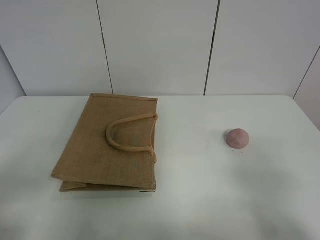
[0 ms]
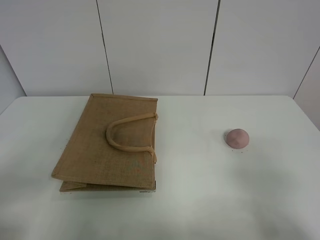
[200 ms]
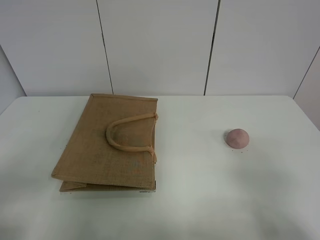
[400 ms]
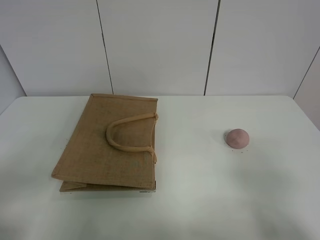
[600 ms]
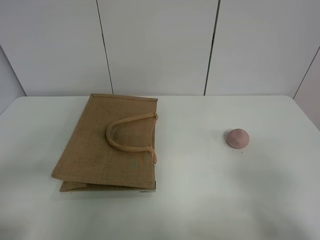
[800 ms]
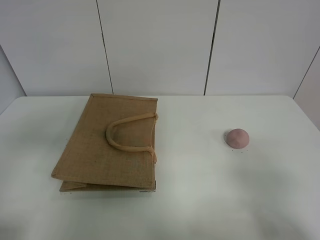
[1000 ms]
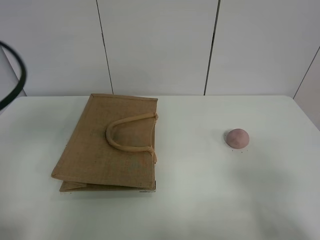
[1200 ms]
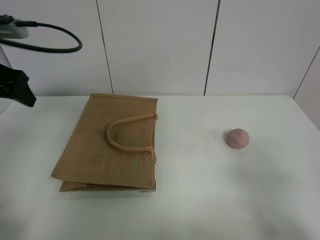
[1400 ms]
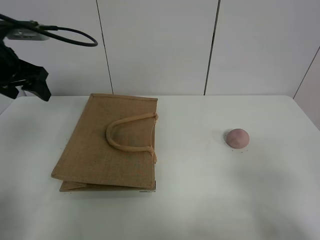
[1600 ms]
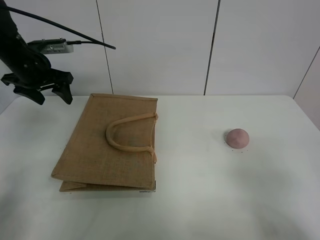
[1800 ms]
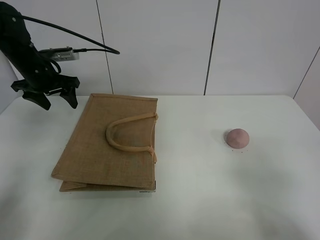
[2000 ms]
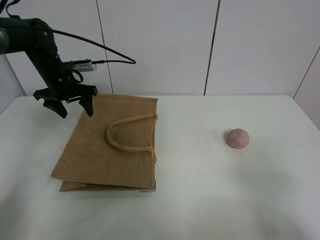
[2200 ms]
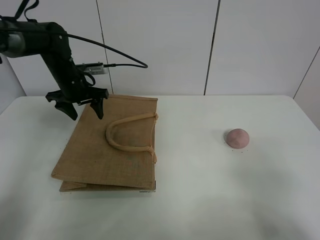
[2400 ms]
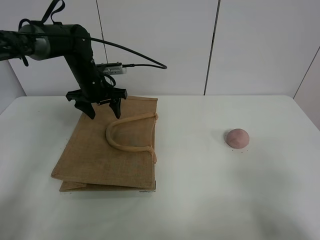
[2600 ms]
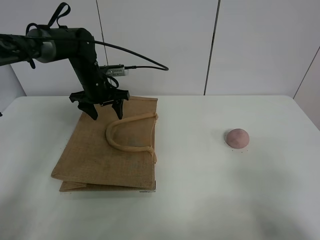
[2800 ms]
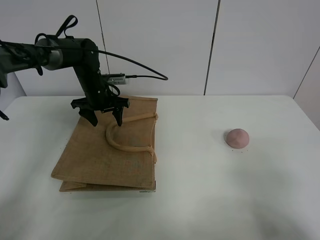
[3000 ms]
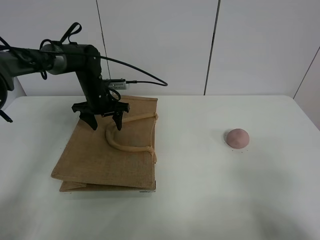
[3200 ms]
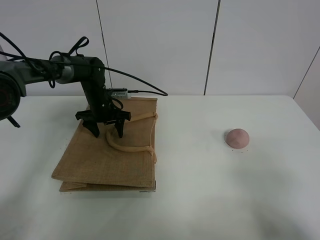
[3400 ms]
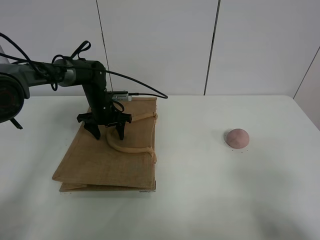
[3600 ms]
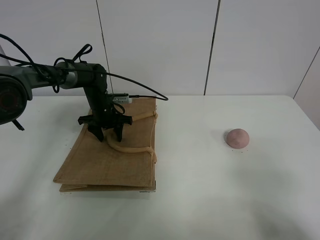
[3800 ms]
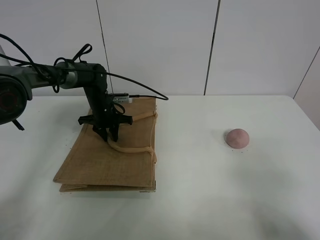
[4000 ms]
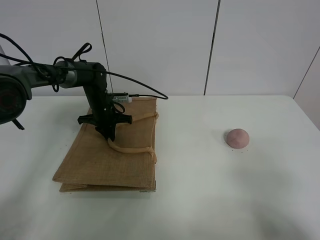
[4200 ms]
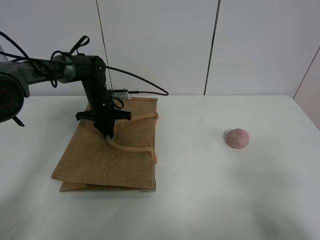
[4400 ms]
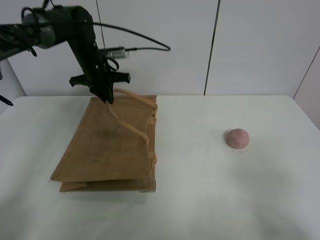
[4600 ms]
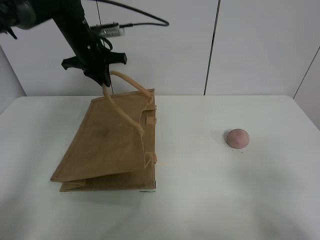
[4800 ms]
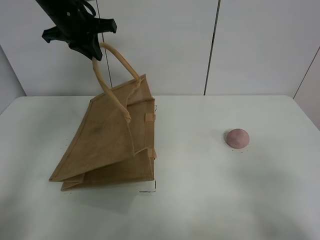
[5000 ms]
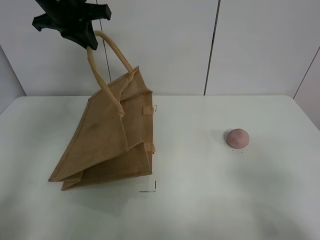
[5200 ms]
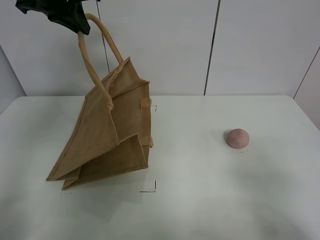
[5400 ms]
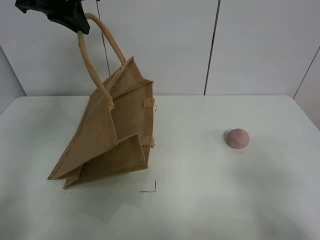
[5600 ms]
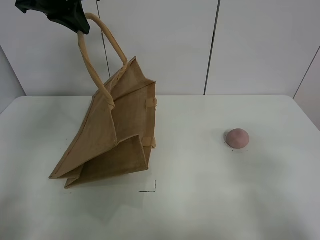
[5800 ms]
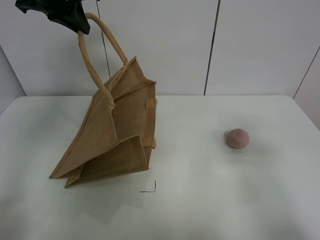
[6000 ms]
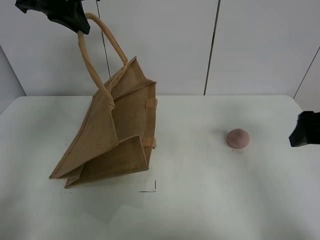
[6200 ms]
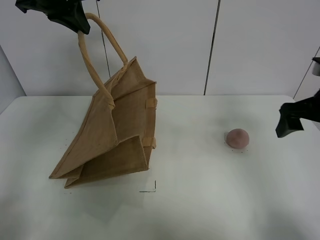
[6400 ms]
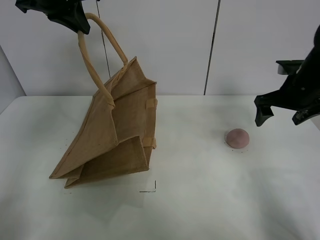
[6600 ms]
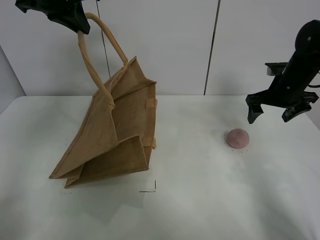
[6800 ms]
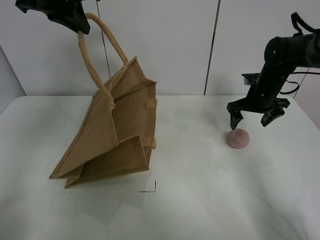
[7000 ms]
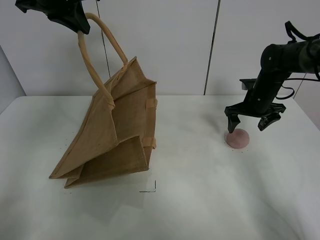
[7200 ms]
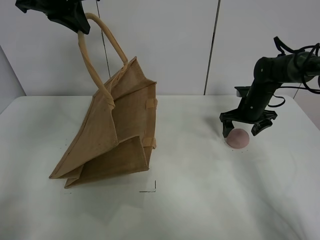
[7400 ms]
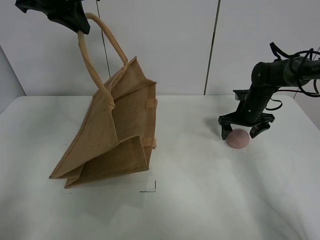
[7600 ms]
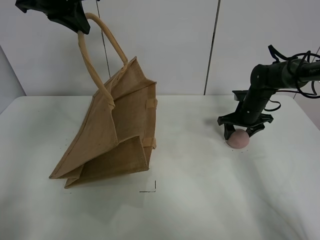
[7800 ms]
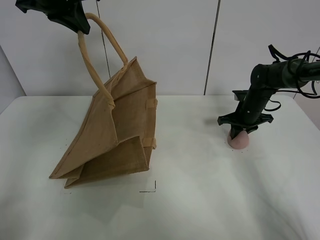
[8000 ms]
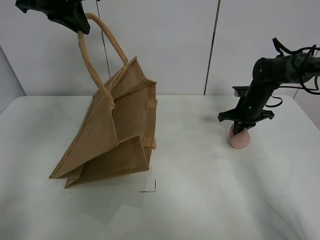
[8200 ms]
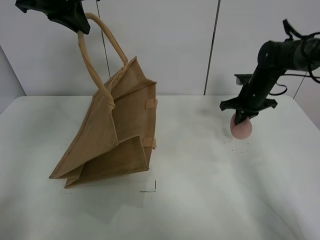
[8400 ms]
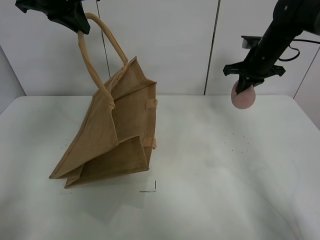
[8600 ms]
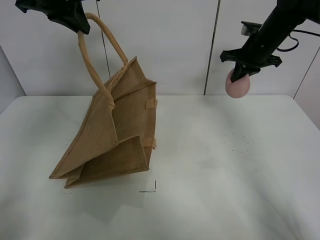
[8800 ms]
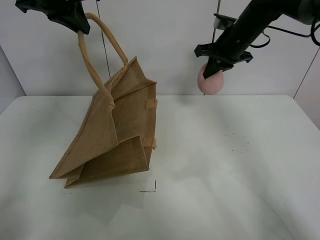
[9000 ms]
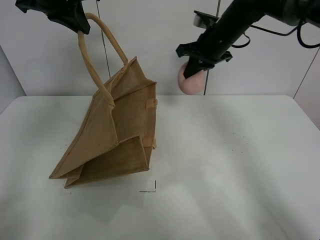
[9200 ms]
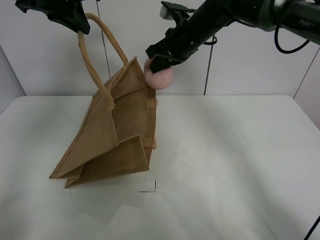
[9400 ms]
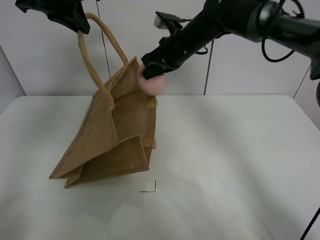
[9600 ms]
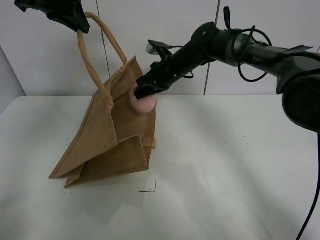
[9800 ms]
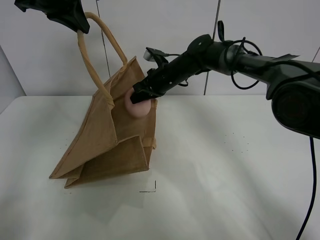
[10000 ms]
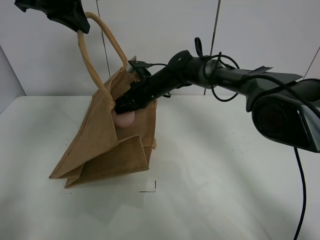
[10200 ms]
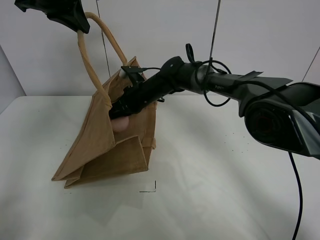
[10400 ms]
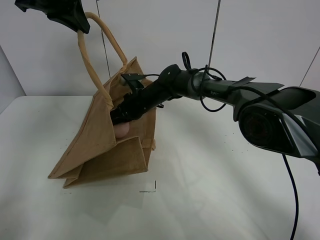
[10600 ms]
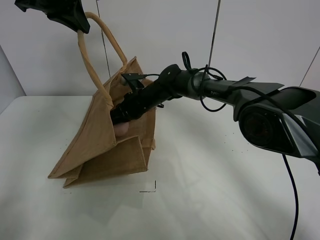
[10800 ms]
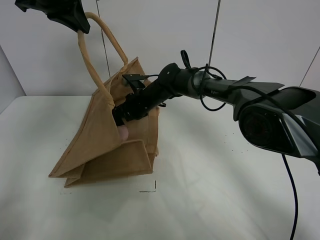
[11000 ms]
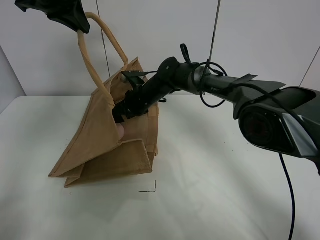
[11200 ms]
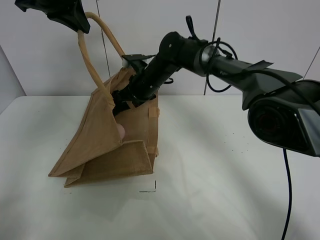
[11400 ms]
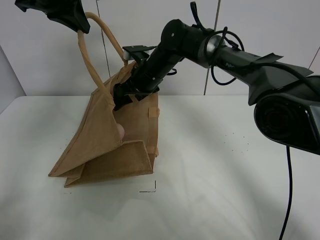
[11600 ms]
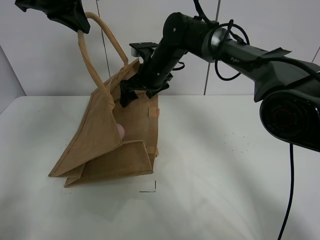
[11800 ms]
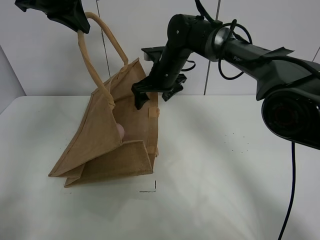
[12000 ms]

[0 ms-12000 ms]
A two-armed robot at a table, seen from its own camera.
Task of the whole recording: open the brown linen bag and put the peach in the bag.
Step, 0 ms to 5400 ms: Lift the handbag with left gripper.
Step, 5600 ms to 8000 ms: Grasp the peach with right gripper.
1600 ms to 3000 ms: The left gripper moves forward, downward and to the right, roughly 25 cm.
3000 ms to 4400 ms: The left gripper heads downward, covering about 5 cm, and closes its fingers.
4400 ms to 6000 ms: The right gripper shifts about 5 cm forward. Meanwhile the left gripper travels upward by approximately 30 cm.
6000 ms to 7600 ms: The right gripper moves forward and downward, roughly 40 cm.
7600 ms to 9000 ms: The right gripper heads upward, covering some 20 cm, and closes.
9000 ms to 10400 ms: The right gripper goes approximately 25 cm to the left and downward.
10400 ms to 12000 ms: The right gripper heads upward, covering approximately 5 cm, and opens.

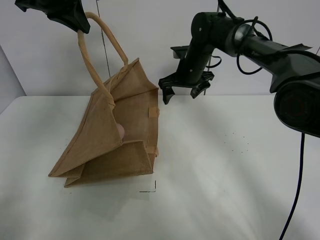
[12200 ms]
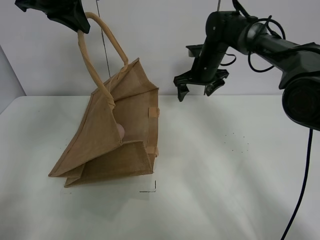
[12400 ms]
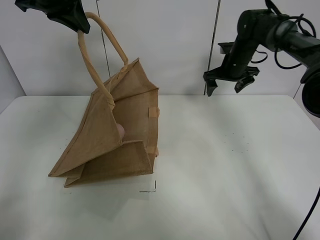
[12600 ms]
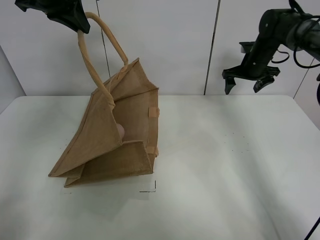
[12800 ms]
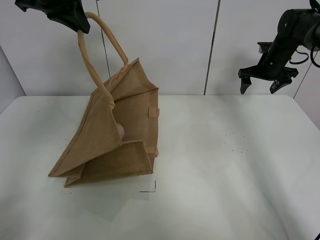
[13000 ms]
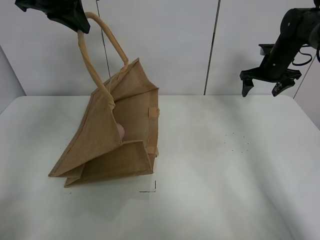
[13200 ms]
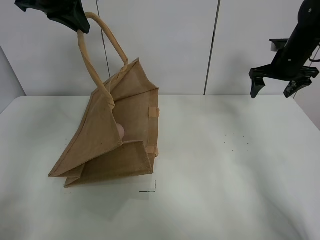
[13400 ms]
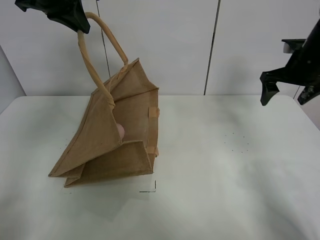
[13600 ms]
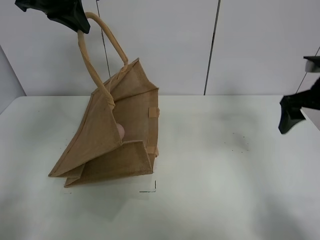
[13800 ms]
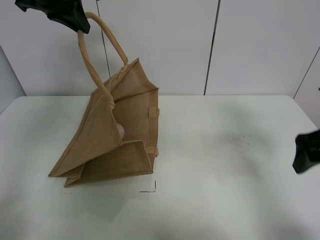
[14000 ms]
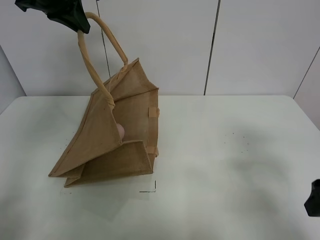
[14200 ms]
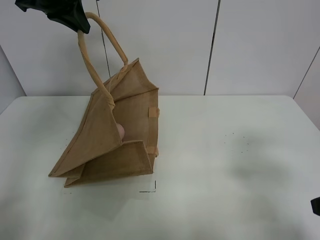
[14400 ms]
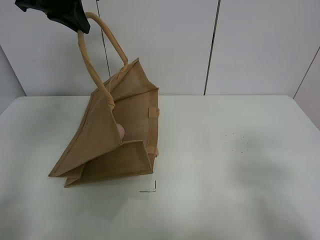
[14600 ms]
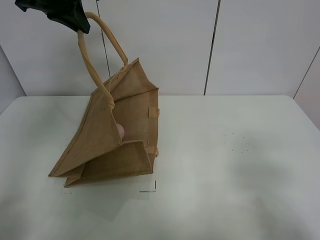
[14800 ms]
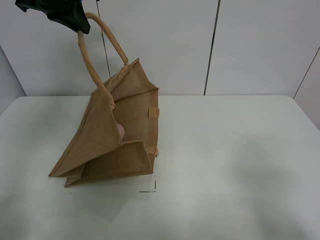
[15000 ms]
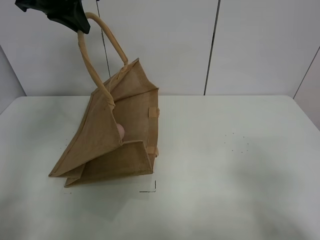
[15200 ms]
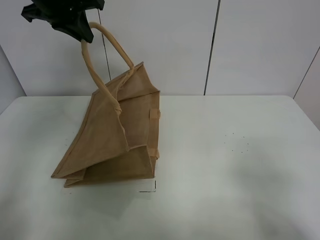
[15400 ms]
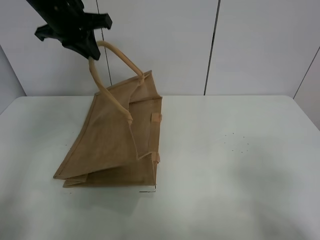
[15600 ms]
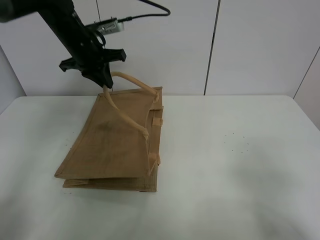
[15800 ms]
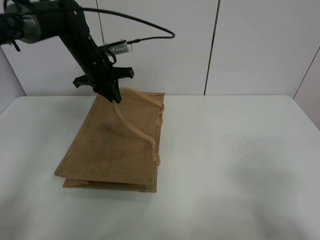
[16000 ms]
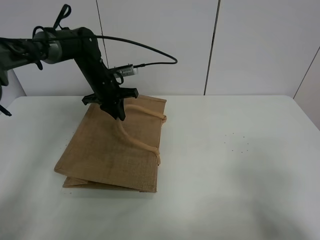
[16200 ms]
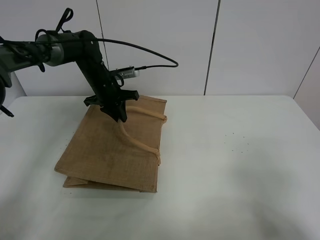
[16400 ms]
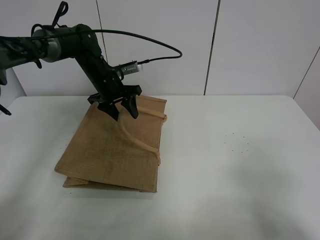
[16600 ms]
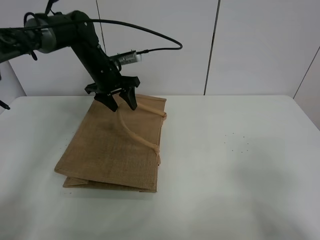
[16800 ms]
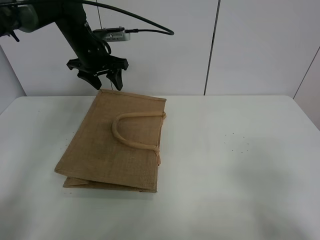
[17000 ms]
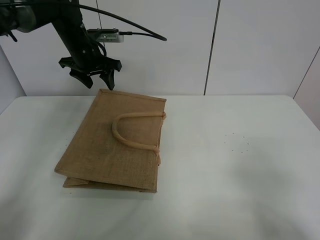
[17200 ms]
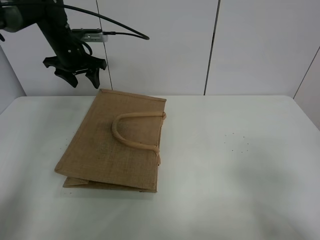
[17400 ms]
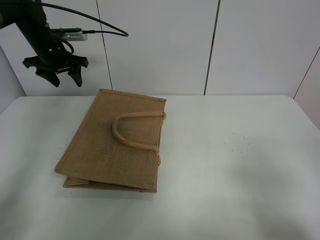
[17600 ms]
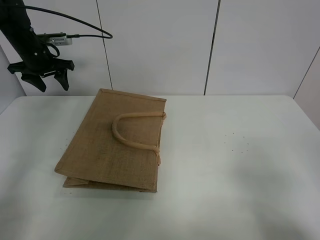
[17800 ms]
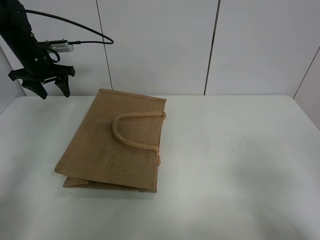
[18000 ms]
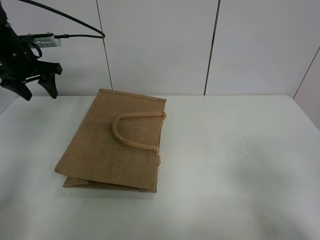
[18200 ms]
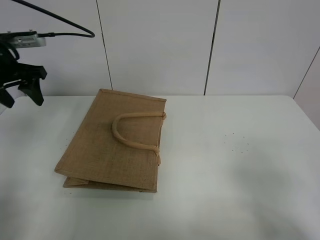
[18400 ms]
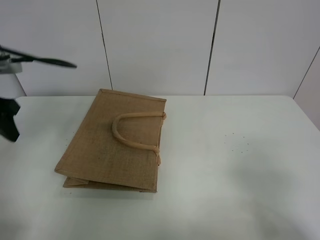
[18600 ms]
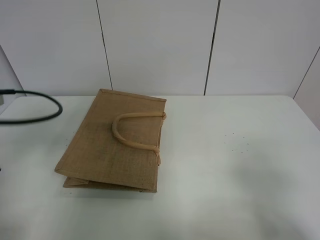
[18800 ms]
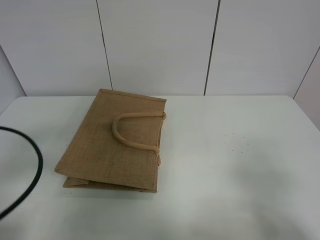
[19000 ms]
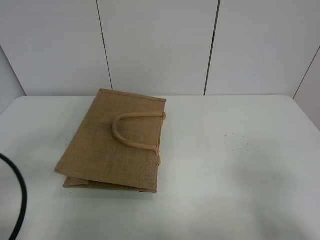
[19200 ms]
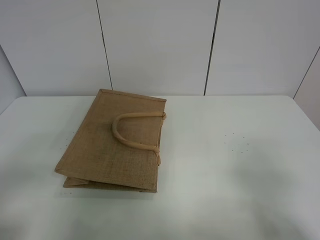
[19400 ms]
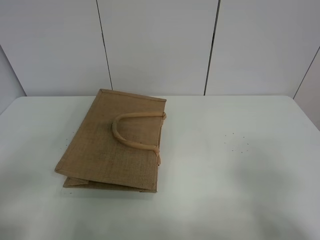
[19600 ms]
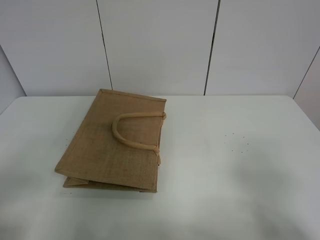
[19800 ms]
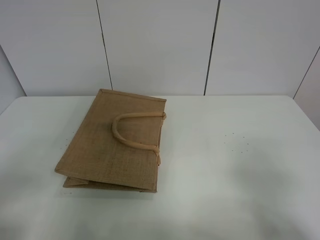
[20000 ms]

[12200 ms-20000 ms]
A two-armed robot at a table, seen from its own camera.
Task of the whole recording: open the brown linen bag and put the peach in the bag.
Step, 12400 ms to 17400 ms: Put down the handbag with left grippe.
12200 ms to 13800 ms: The right gripper shifts approximately 30 cm to the right and backward.
13800 ms to 15400 ms: The right gripper heads backward, covering about 30 cm.
15400 ms to 16800 ms: The left gripper shifts approximately 20 cm downward, and opens.
16800 ms to 18400 ms: The left gripper goes about 20 cm to the left, upward and backward.
18400 ms to 20000 ms: The left gripper moves backward, roughly 35 cm.

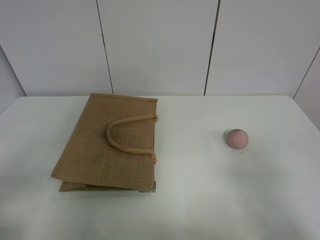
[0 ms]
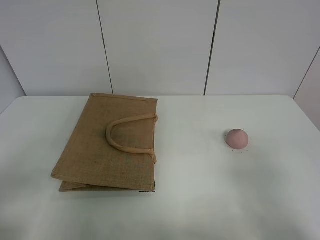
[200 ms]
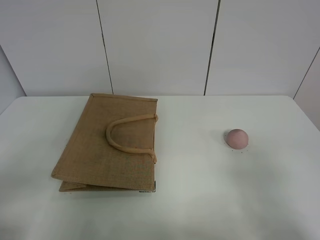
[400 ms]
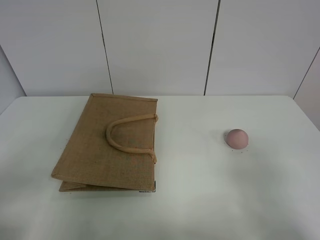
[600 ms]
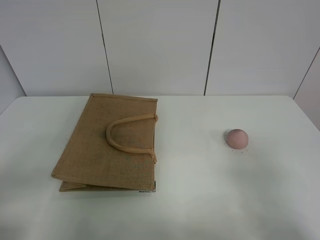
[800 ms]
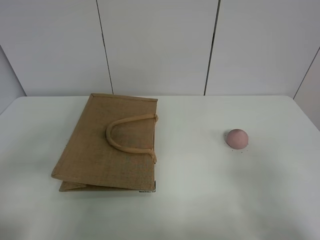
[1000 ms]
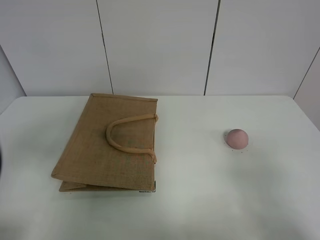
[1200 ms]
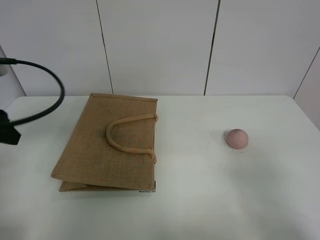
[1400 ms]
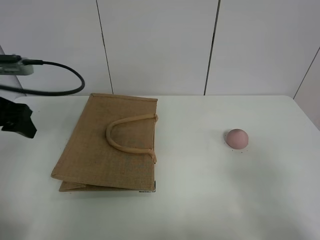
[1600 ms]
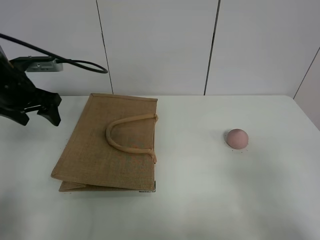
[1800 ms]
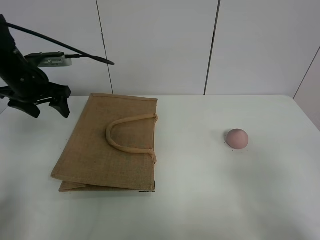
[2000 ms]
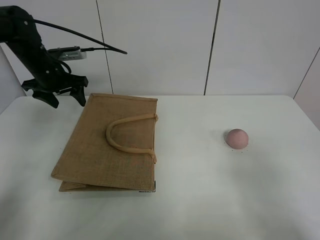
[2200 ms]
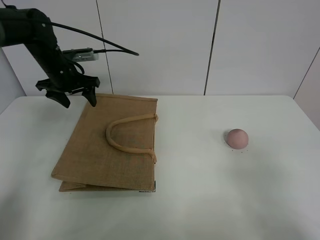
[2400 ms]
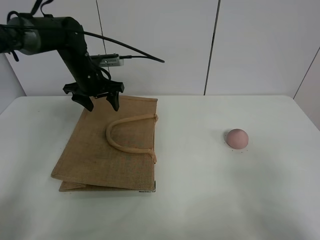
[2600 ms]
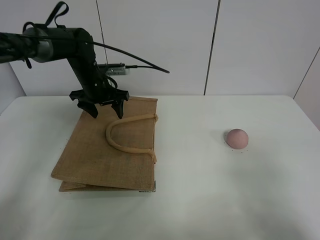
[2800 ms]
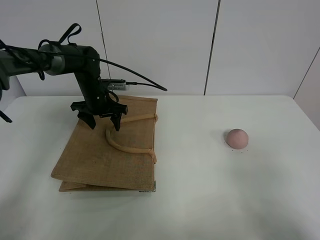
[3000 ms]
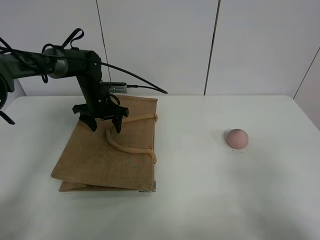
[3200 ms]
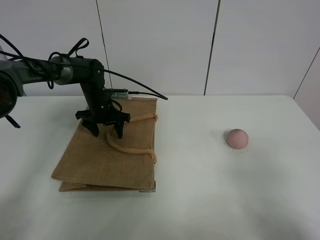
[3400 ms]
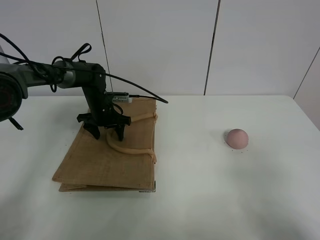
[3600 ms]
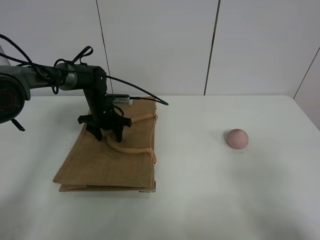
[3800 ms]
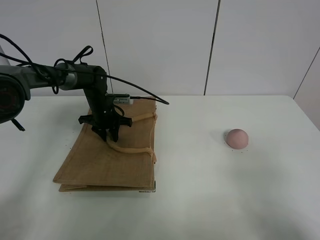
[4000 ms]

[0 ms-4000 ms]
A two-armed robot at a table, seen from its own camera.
Task of the whole recording: open the brown linen bag and put the peach in the bag.
0 ms to 1400 ms: The left gripper goes some 20 cm forward.
1400 ms to 2600 ms: The left gripper heads forward and to the right, covering about 25 cm.
2600 ms to 4000 ms: The left gripper heads downward, covering about 10 cm, and closes.
